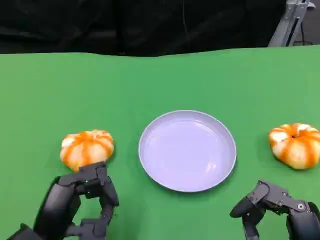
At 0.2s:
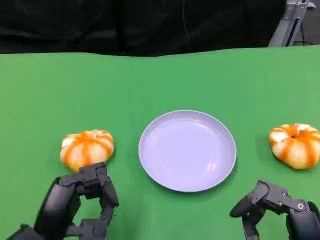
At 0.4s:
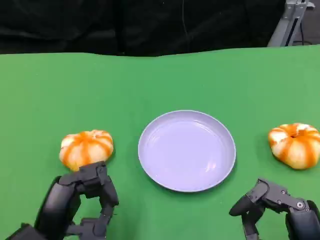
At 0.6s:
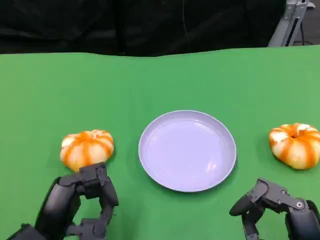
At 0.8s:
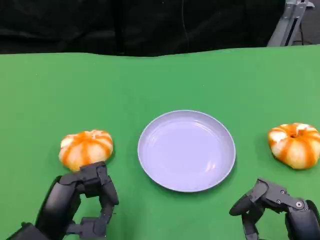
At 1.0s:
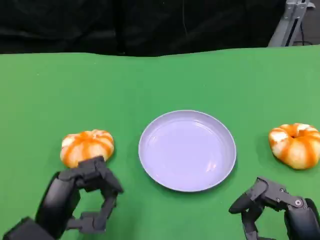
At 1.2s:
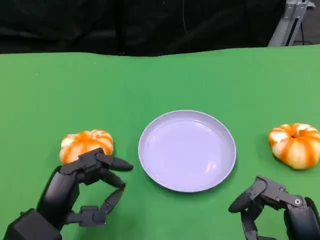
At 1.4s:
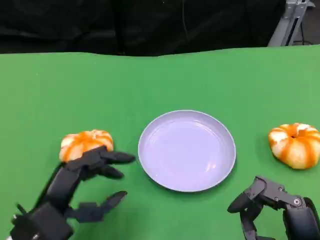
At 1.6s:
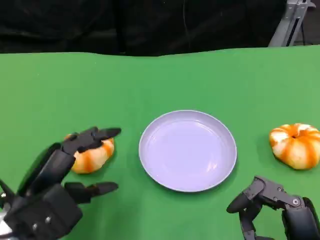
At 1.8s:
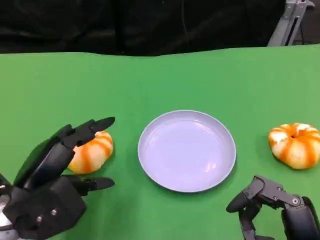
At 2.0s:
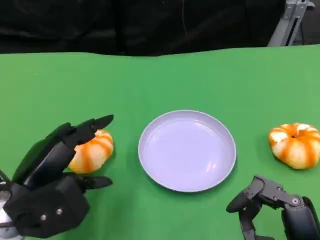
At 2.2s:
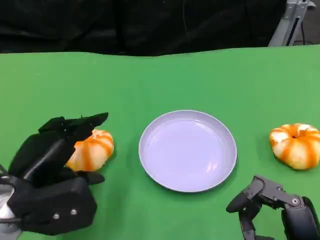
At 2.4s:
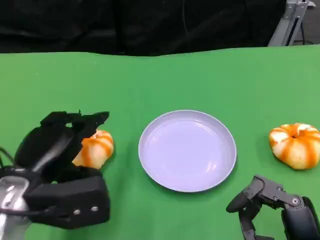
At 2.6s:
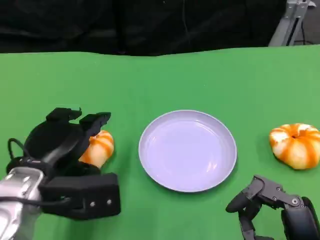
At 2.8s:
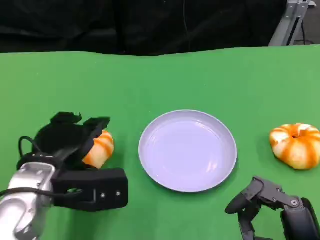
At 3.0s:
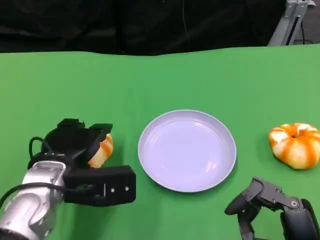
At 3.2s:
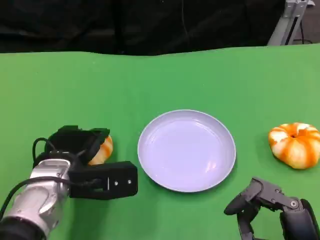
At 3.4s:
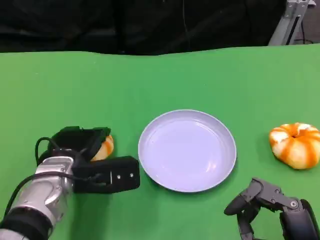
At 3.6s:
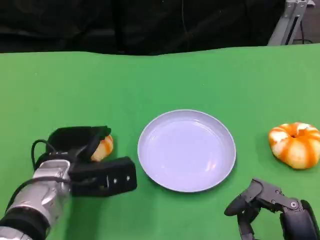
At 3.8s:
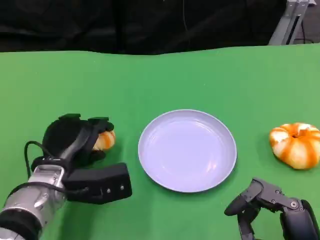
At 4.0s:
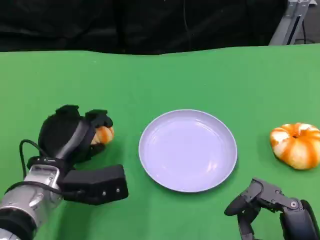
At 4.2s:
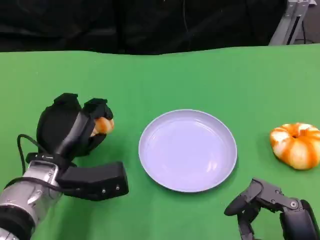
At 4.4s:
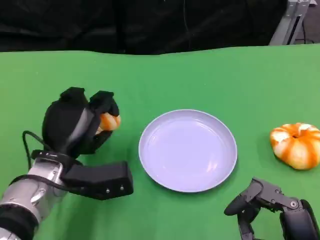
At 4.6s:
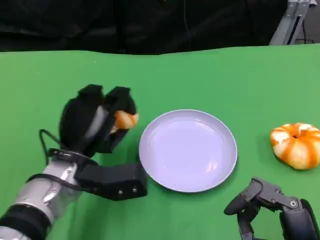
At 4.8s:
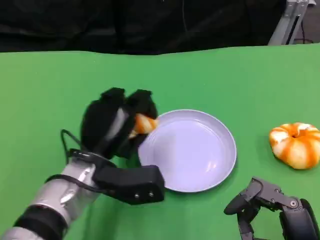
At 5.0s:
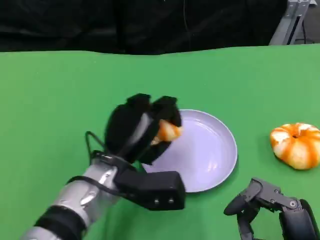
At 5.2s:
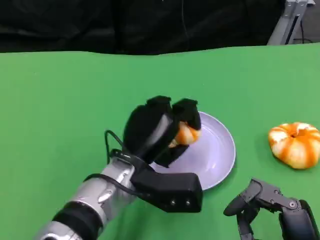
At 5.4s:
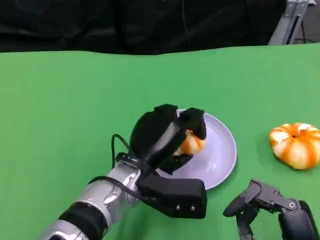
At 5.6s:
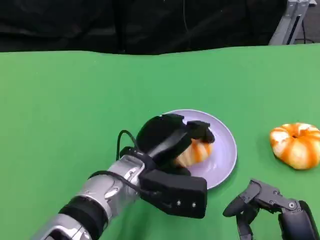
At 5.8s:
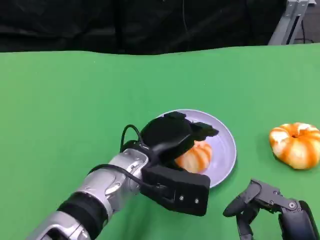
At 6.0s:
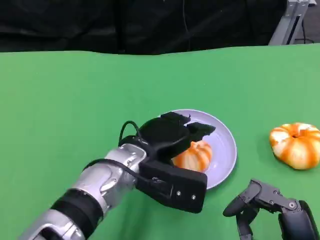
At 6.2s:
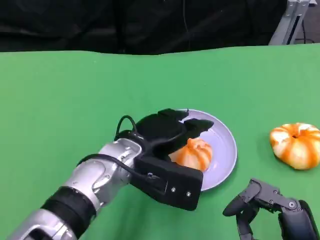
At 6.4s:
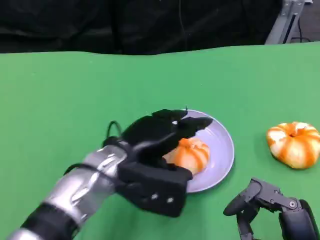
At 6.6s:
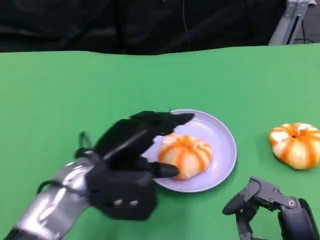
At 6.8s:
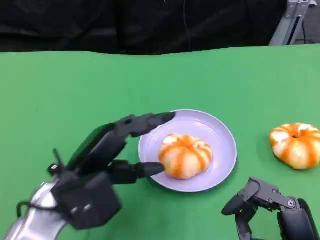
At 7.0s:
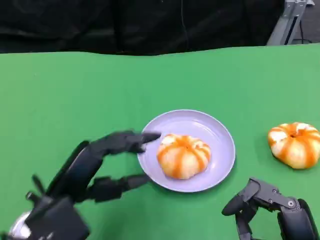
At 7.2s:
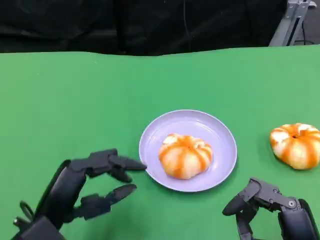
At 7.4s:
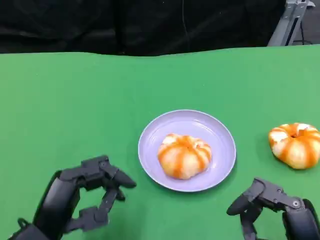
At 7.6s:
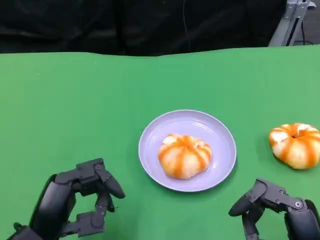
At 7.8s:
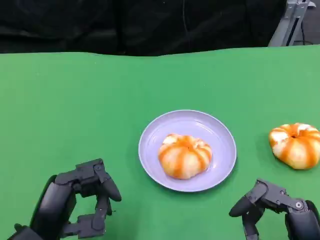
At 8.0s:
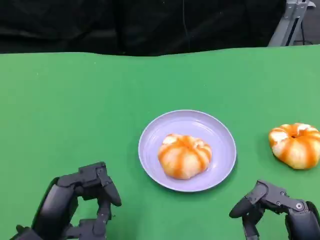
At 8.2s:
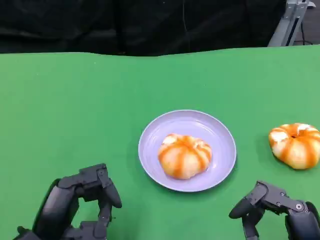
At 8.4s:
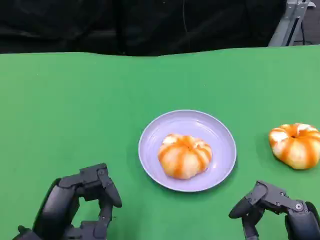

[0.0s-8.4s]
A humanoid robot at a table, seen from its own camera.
Task of the whole recording: Grasp the bread from the table and place it into the plate.
0.0s to 1.4s: The hands move only a little.
1.4s to 2.8s: The left hand shifts roughly 5 cm forward.
4.2s to 5.6s: The left hand goes approximately 10 cm to the right.
5.6s to 7.0s: The left hand is displaced to the left and backward by approximately 15 cm.
7.0s to 8.4s: There are only small adjustments of the hands.

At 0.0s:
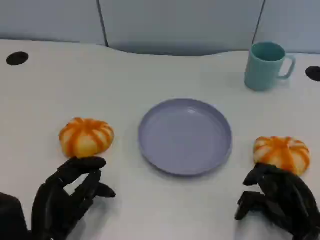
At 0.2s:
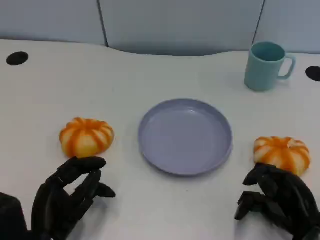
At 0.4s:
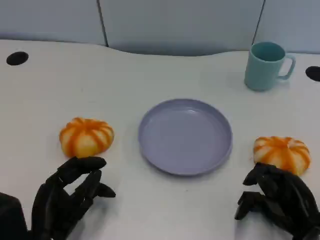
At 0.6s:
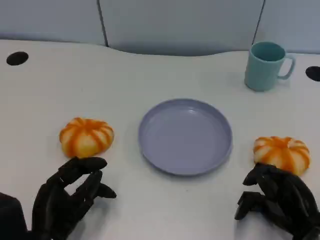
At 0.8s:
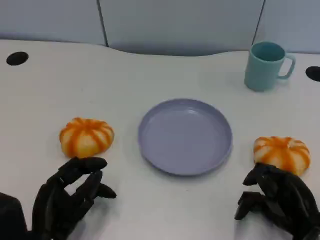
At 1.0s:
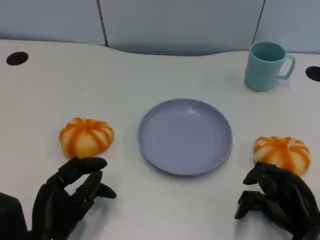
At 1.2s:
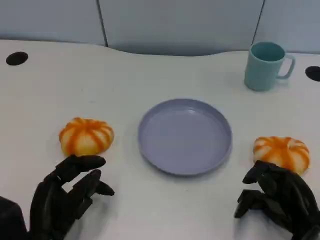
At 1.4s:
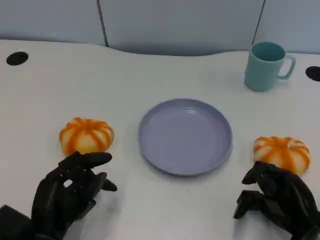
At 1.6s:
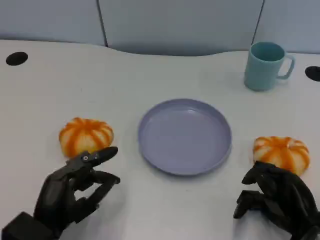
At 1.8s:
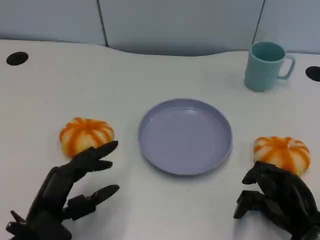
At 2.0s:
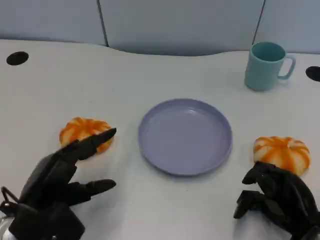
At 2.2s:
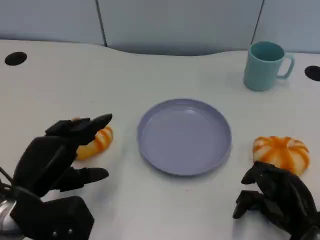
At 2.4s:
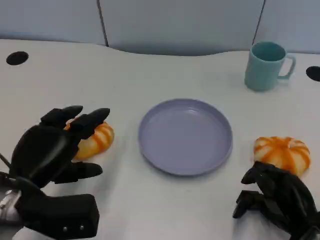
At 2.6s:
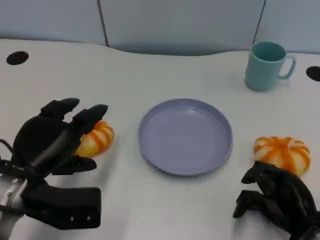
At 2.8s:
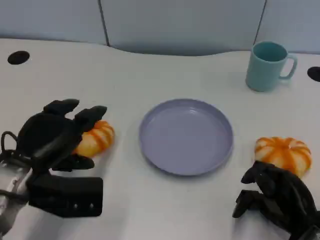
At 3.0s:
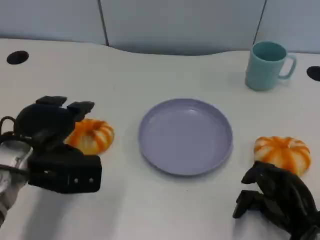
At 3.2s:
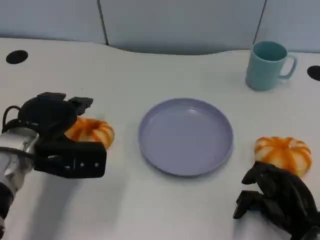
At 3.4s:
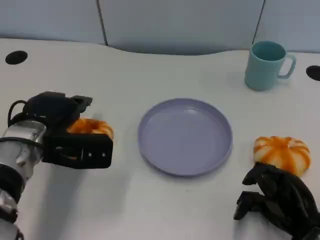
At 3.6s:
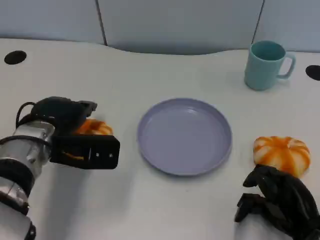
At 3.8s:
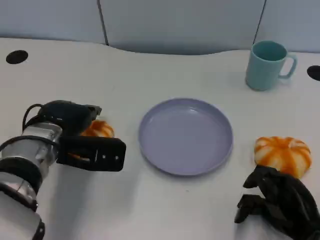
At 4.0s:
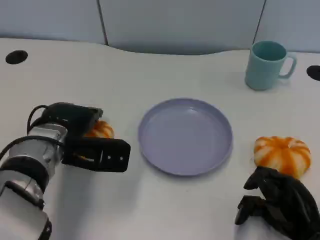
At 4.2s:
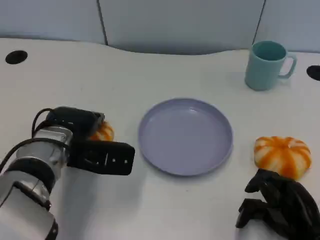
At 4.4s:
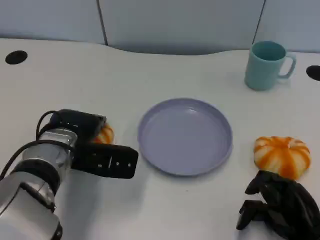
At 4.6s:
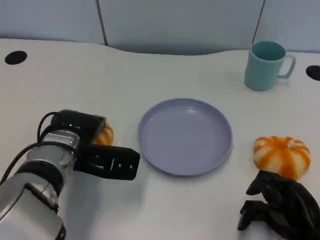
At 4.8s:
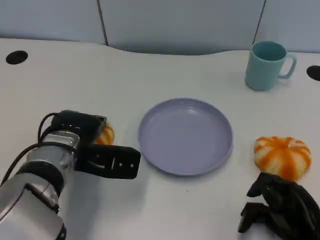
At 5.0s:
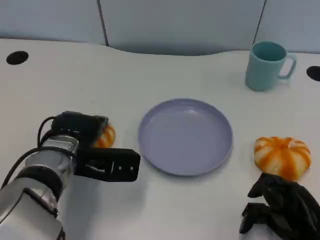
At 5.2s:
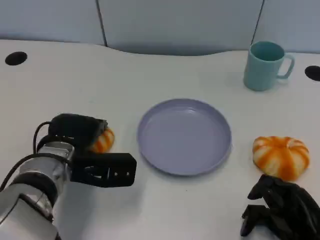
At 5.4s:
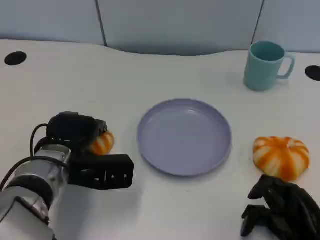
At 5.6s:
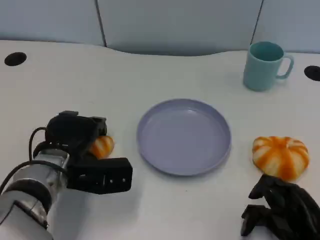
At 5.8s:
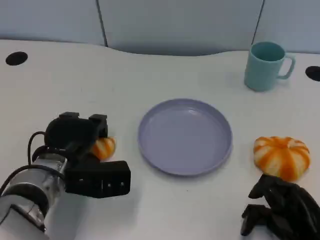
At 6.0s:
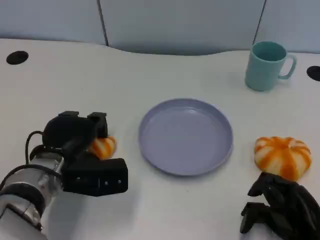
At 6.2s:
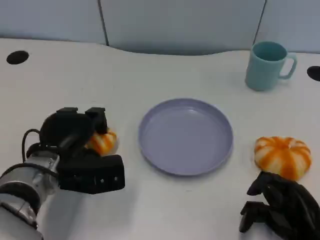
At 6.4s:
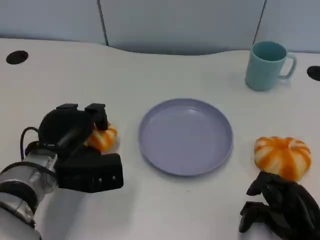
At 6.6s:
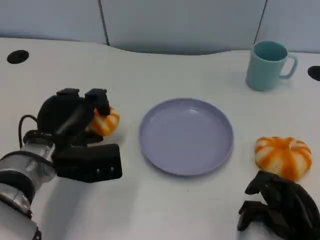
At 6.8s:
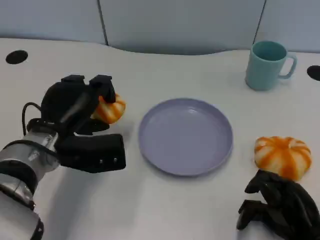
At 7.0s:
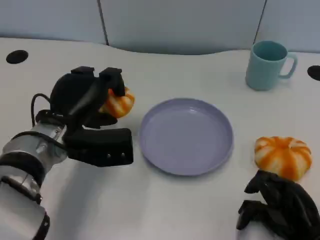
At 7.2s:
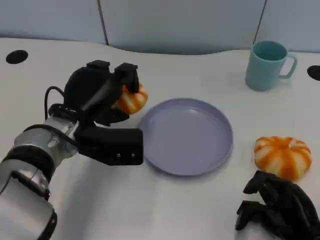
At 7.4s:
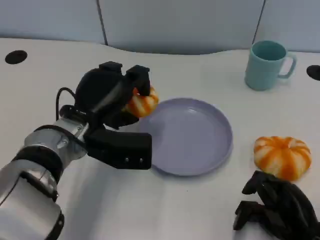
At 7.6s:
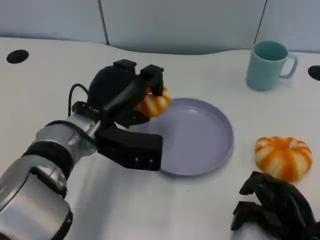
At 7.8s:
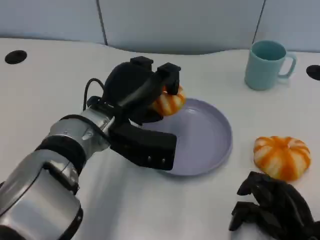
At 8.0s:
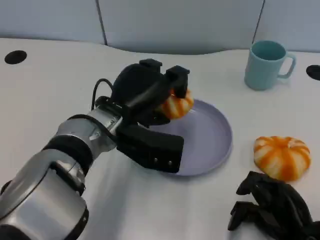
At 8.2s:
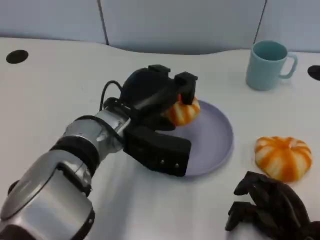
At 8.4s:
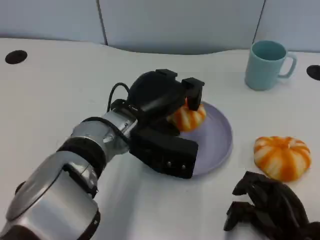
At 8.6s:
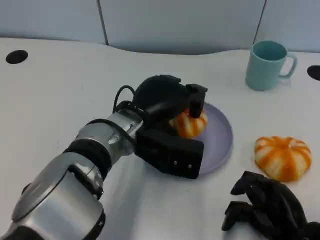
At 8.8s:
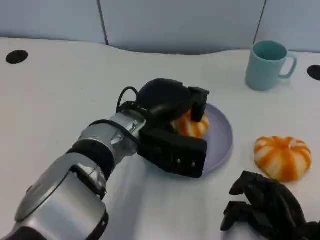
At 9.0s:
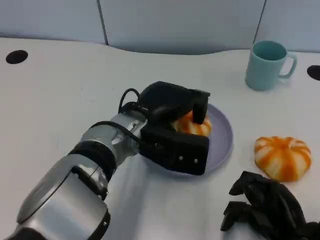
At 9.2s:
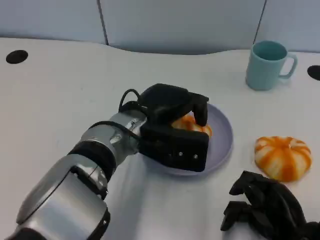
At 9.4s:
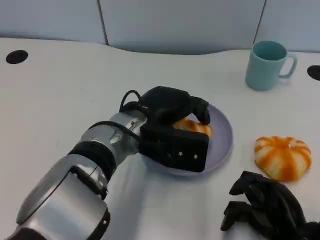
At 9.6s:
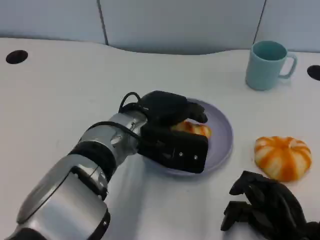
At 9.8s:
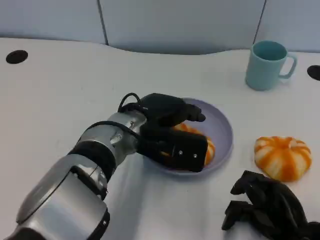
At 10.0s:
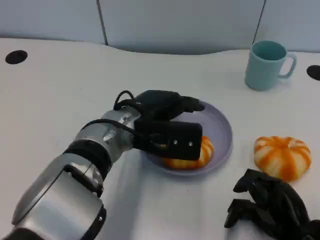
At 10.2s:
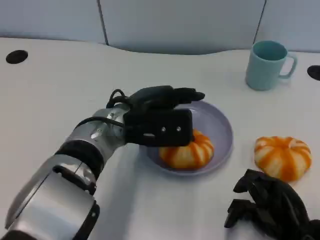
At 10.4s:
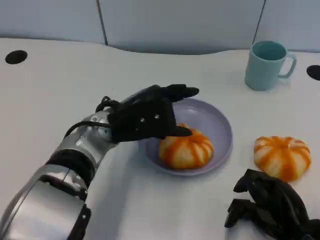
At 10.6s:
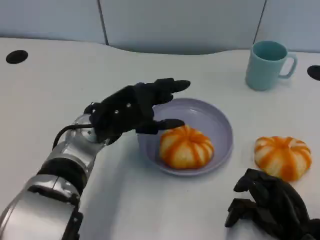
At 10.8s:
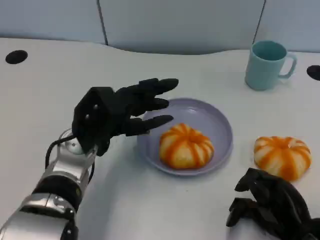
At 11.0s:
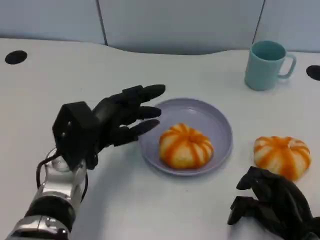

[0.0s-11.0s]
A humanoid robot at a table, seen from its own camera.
Task of the whole recording: Grasp the bread from the table and place it into the plate.
1.6s to 3.2s: The left hand travels forward and upward by about 15 cm.
3.2s to 4.8s: The left hand heads to the right, covering roughly 5 cm.
6.2s to 7.8s: The left hand goes about 10 cm to the right and upward.
9.4s to 11.0s: The left hand moves to the left, roughly 10 cm.

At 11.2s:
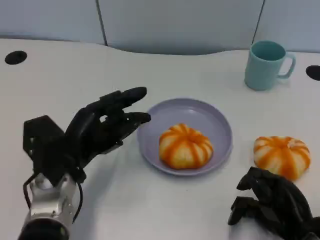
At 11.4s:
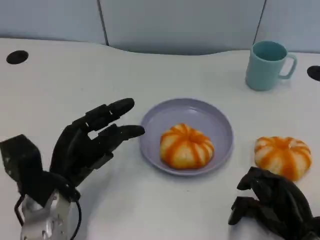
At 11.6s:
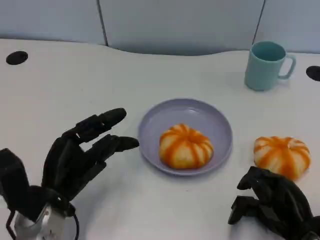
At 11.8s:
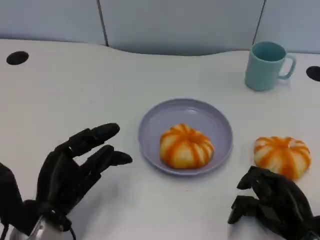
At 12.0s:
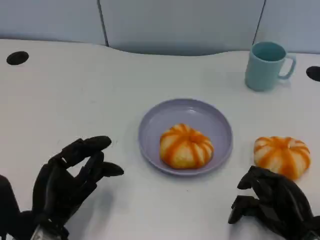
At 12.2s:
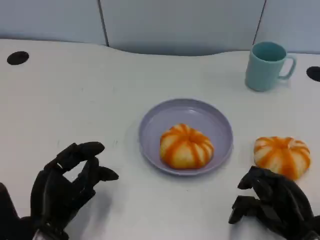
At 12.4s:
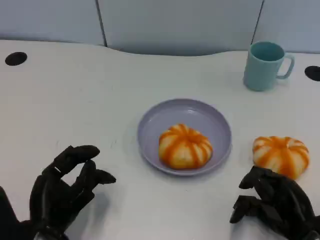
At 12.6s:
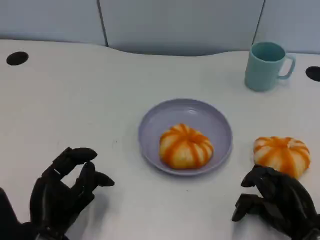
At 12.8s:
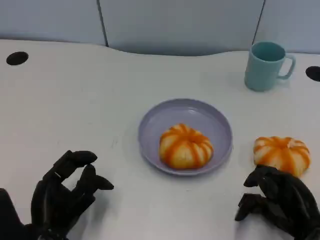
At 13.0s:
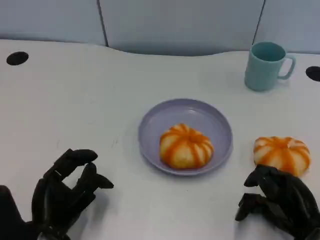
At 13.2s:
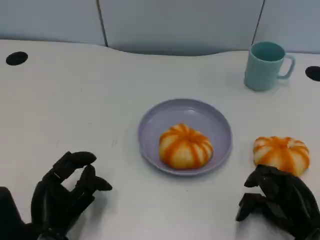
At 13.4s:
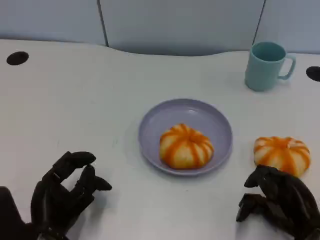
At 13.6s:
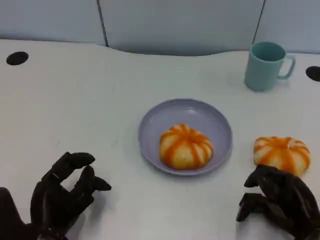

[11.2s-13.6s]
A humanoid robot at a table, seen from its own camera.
Task of the whole recording: Grasp the bread from the table and place it into the plate.
11.2s to 12.4s: The left hand goes approximately 10 cm backward.
12.4s to 13.6s: Neither hand changes place.
